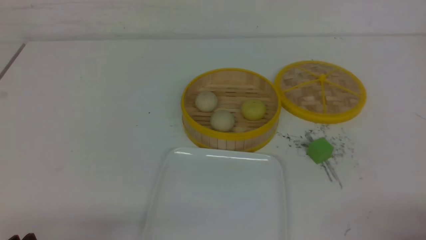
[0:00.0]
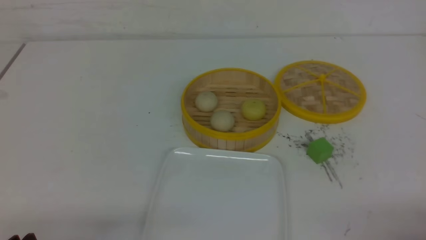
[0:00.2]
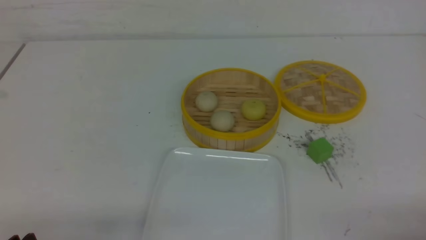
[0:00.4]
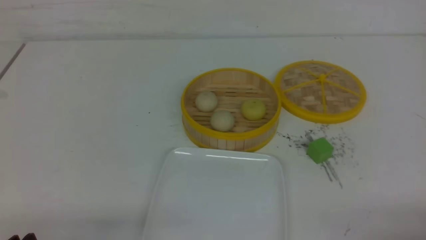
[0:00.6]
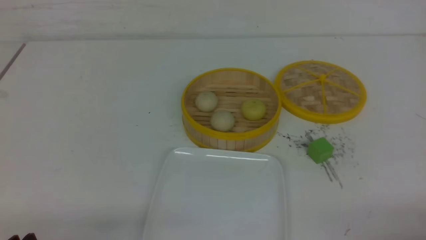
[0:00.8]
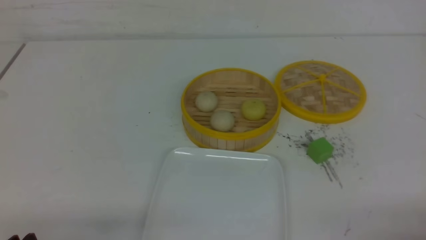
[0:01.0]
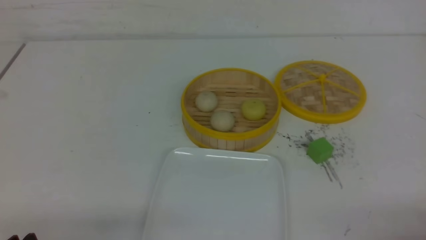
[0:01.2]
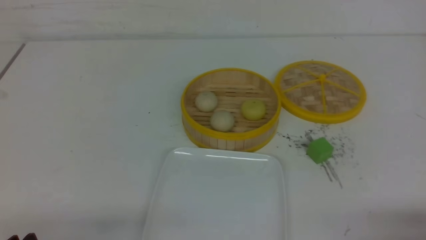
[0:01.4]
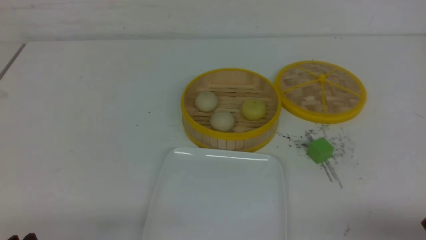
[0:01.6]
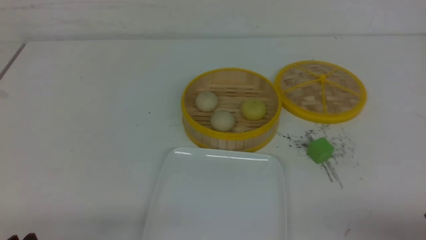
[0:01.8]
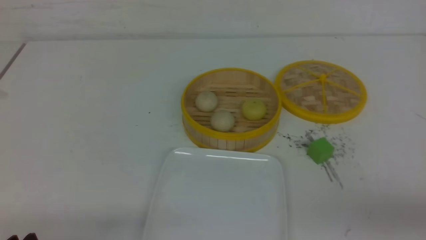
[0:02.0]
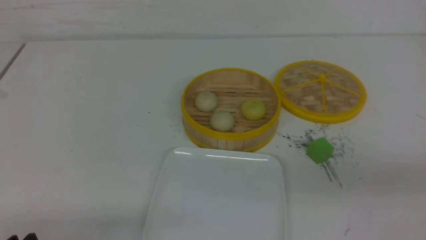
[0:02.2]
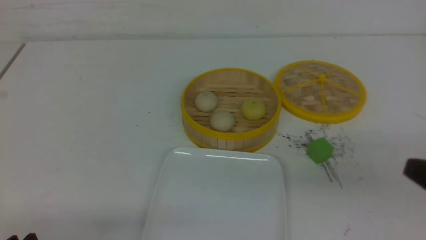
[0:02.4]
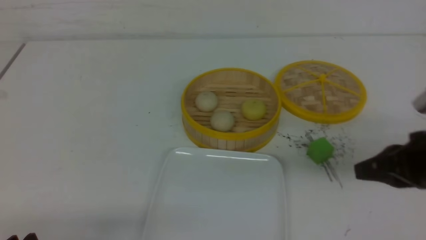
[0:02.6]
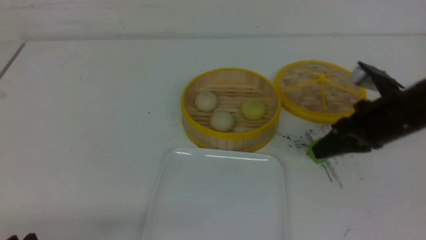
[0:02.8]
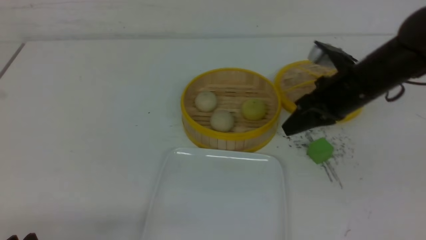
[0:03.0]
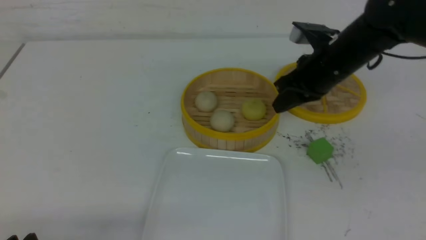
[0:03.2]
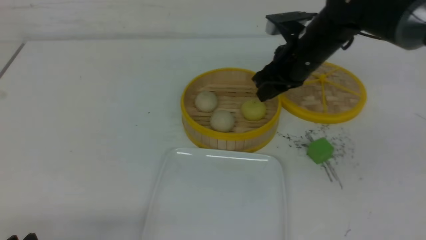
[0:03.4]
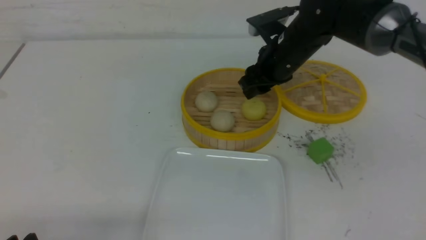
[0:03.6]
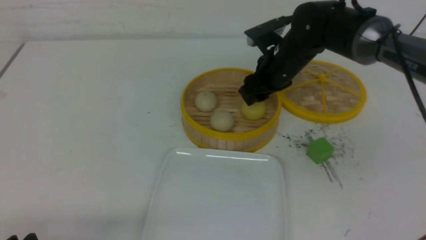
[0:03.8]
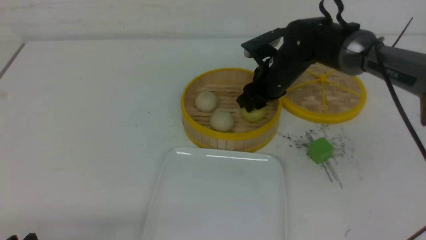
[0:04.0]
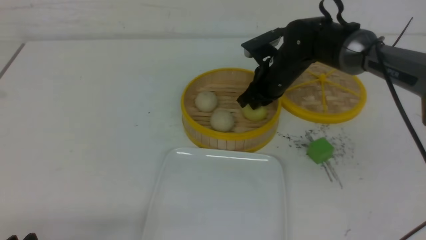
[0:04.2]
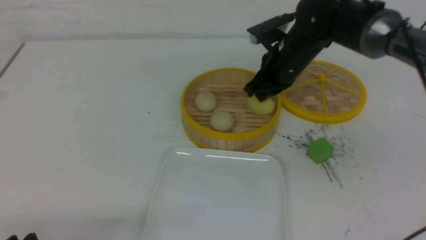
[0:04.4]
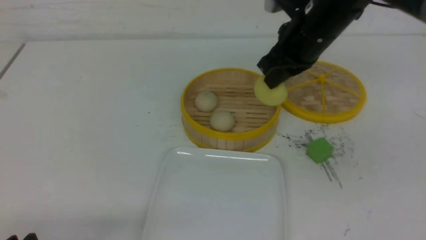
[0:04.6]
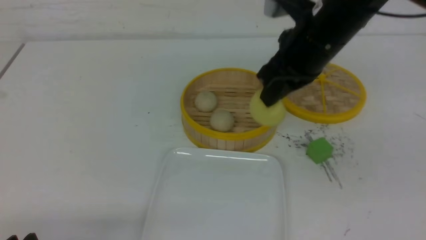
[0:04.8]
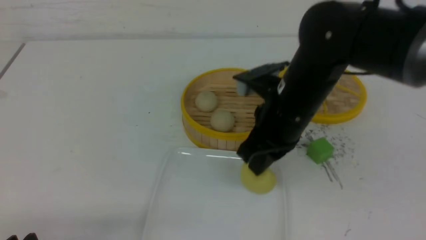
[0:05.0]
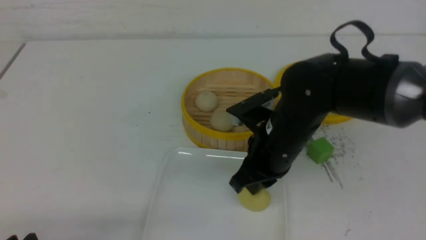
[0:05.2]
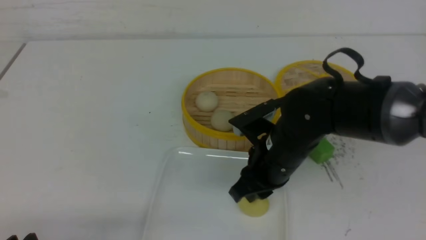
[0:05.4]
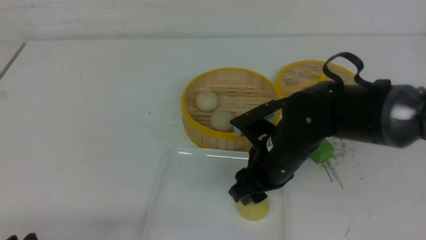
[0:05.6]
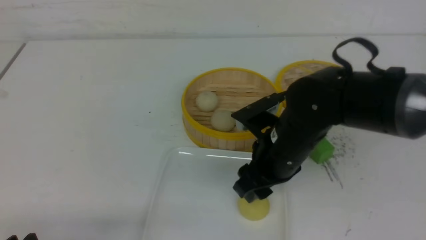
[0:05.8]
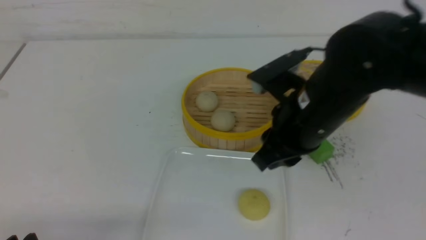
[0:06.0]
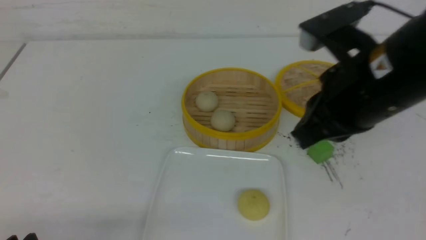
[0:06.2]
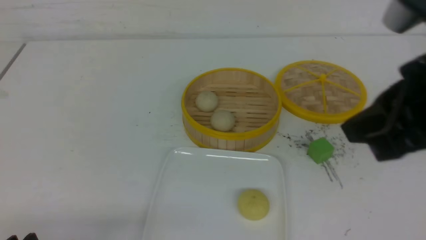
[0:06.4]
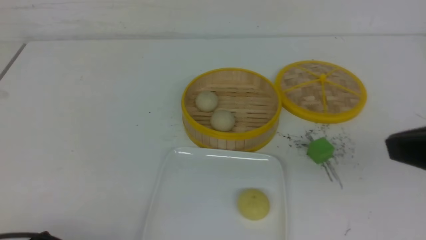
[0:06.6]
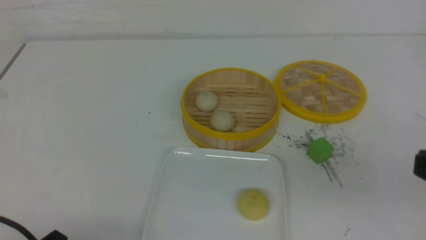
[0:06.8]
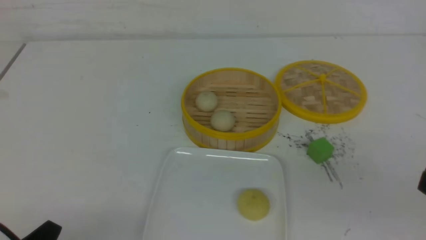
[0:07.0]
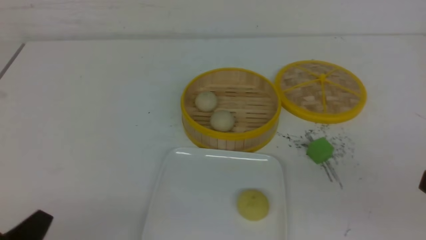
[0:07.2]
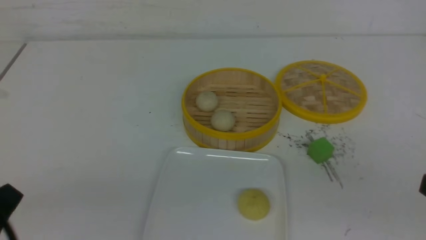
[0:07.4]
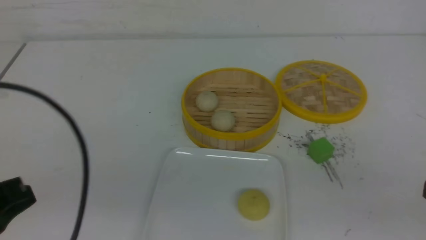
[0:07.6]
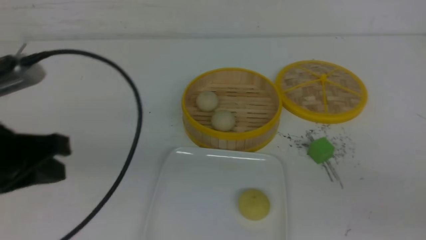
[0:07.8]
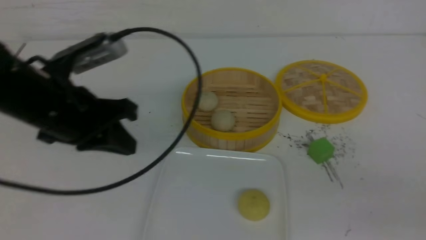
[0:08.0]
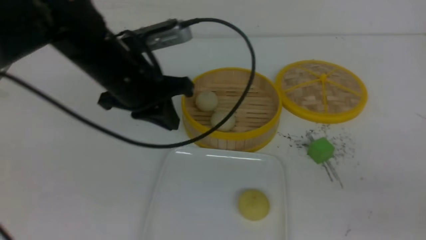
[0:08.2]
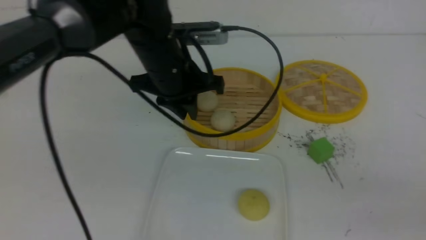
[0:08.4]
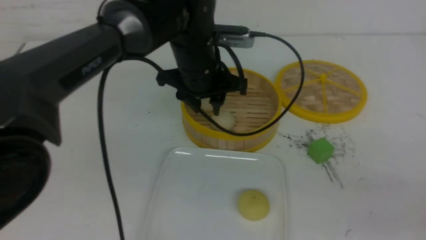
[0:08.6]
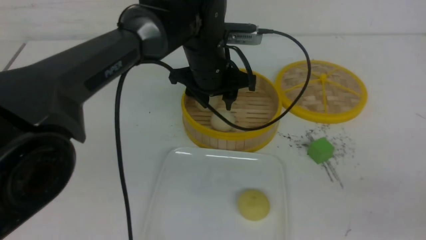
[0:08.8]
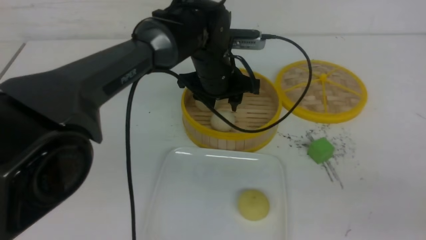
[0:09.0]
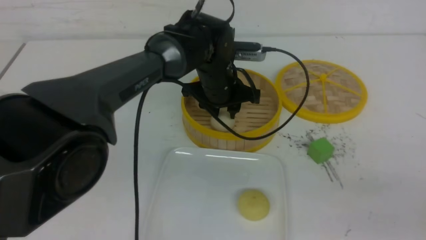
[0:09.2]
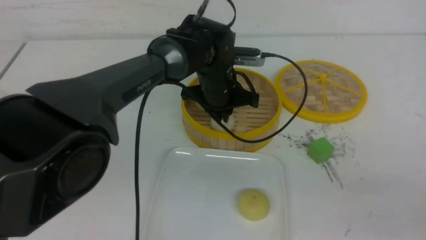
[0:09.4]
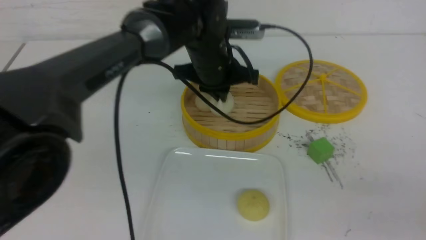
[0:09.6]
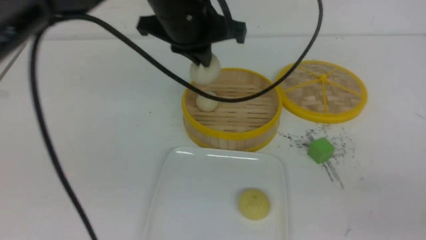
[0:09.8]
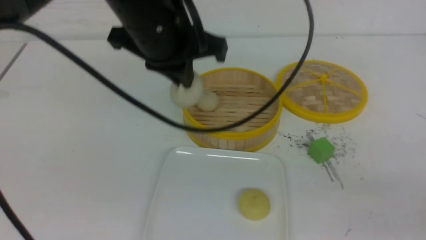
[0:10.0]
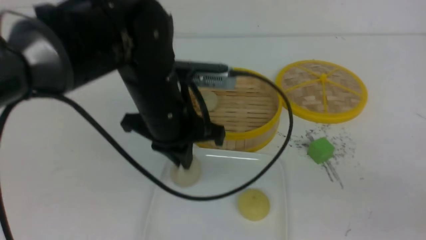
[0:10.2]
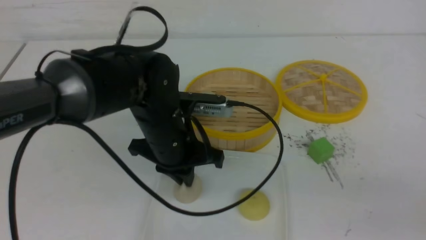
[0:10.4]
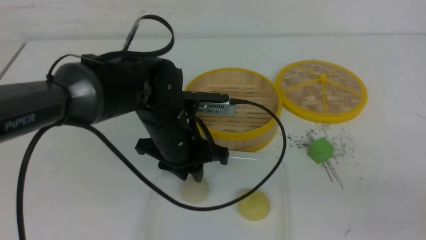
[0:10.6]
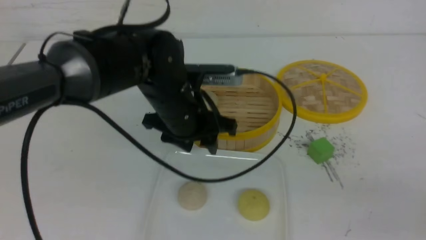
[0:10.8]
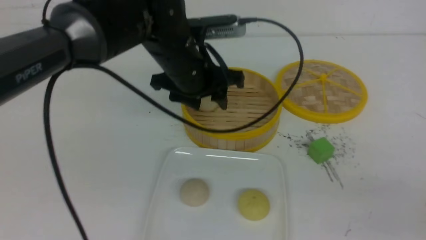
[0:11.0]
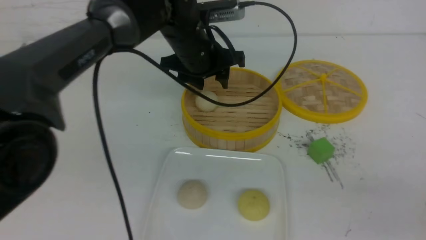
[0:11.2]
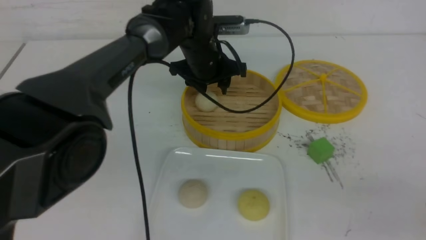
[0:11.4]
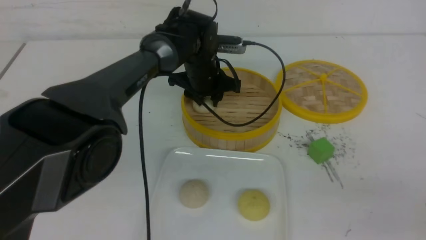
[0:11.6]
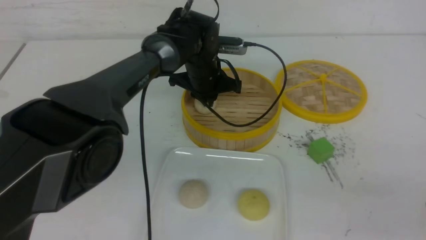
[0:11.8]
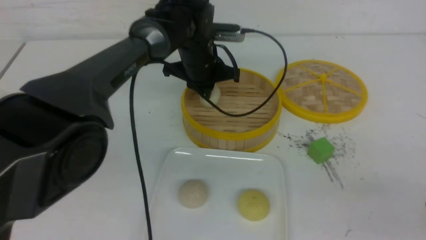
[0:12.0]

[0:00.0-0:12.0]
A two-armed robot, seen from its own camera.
Step, 0:00.0 to 0:04.2: use the right arm to grab the steamed stuffed bun that is closest to it.
Step, 0:04.4 to 0:05.4: use the right arm to put the steamed stuffed bun into the plate.
Step, 0:05.6 to 0:09.4: use the left arm to grab the steamed stuffed bun that is closest to it.
Step, 0:09.6 to 0:10.4: use the left arm to put the steamed stuffed bun into the plate.
Step, 0:10.8 to 0:11.8: use the left arm to grab the steamed stuffed bun that is closest to it.
0:01.6 to 0:03.0: The right gripper travels forward by approximately 30 cm, and closes its fingers.
0:03.0 to 0:04.4: The right gripper travels to the left and forward by approximately 10 cm, and opens, then closes again.
0:04.4 to 0:06.0: The right gripper goes some 15 cm backward, and opens its fingers.
0:06.0 to 0:07.6: The left gripper goes approximately 15 cm upward, and closes up. Meanwhile the right gripper goes roughly 25 cm backward and to the right, and closes its fingers.
0:07.6 to 0:09.0: The left gripper moves forward and to the right, some 40 cm, and opens up.
0:09.0 to 0:10.4: The left gripper travels backward and to the left by about 15 cm, reaches some 10 cm upward, then returns, and closes.
0:10.4 to 0:12.0: The left gripper heads forward, covering approximately 15 cm, and opens and closes again.

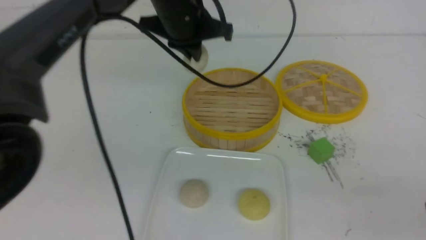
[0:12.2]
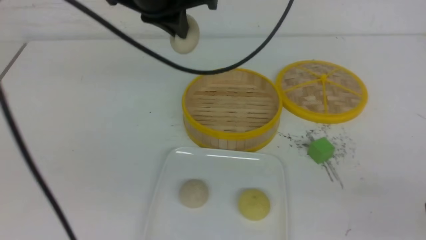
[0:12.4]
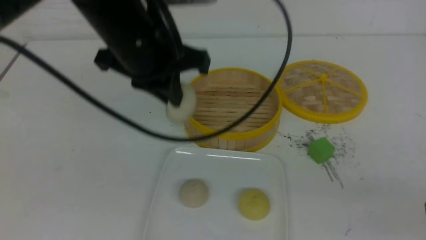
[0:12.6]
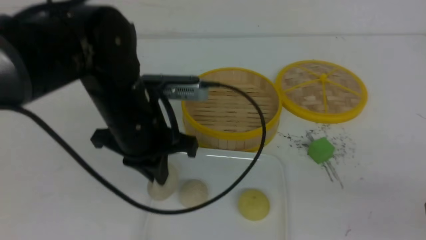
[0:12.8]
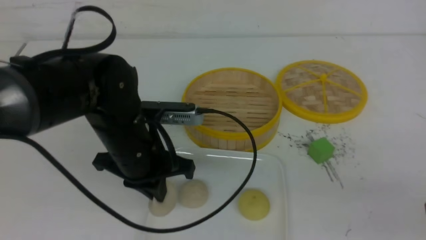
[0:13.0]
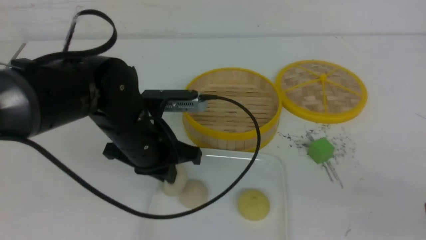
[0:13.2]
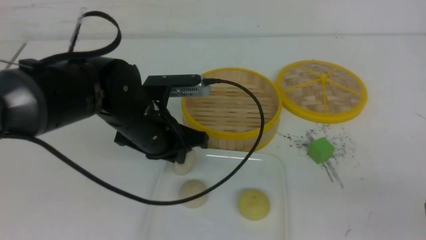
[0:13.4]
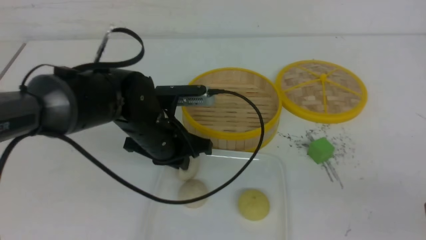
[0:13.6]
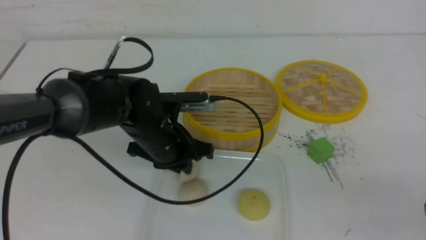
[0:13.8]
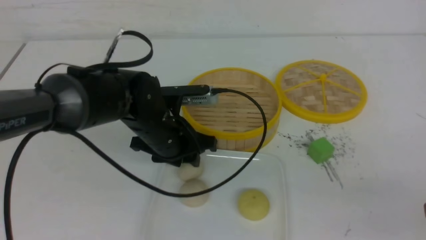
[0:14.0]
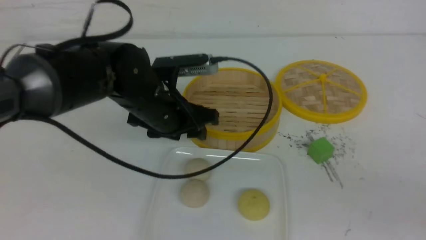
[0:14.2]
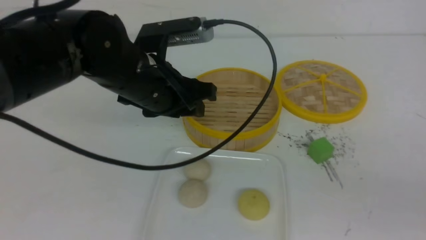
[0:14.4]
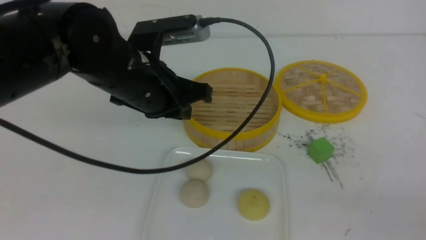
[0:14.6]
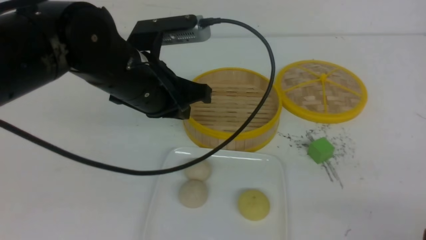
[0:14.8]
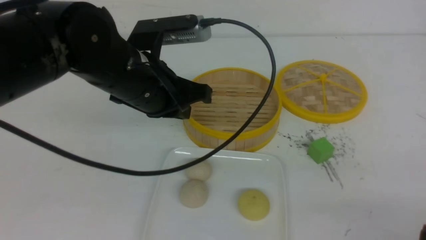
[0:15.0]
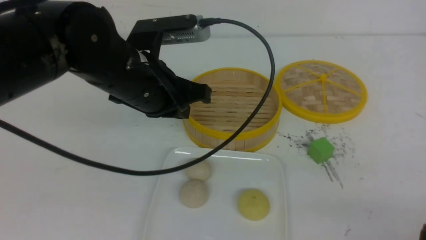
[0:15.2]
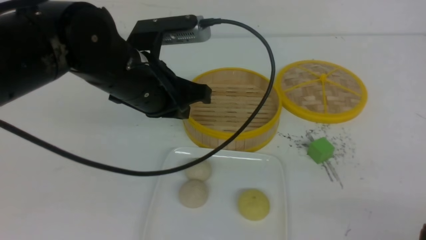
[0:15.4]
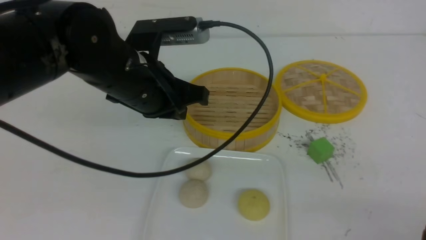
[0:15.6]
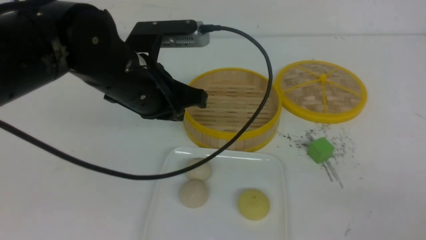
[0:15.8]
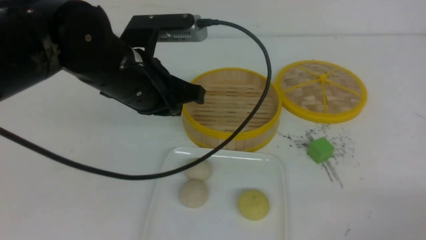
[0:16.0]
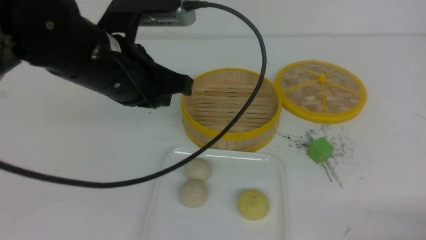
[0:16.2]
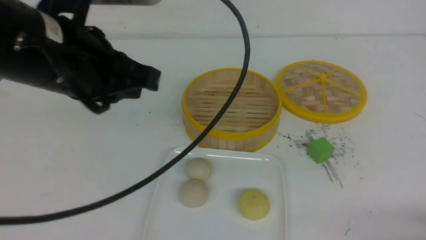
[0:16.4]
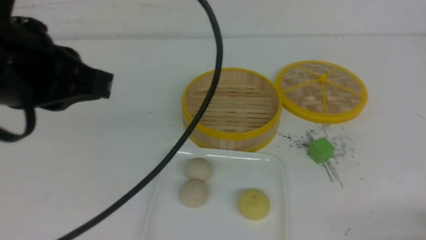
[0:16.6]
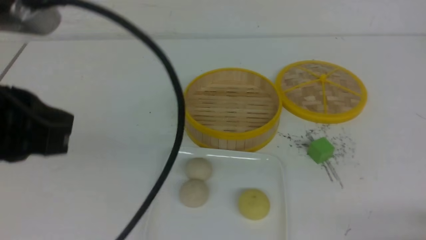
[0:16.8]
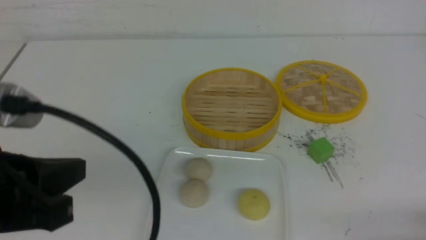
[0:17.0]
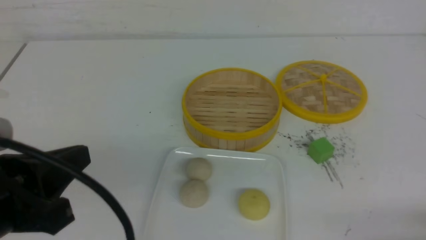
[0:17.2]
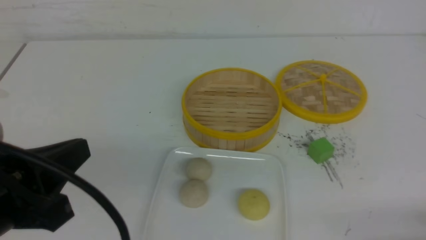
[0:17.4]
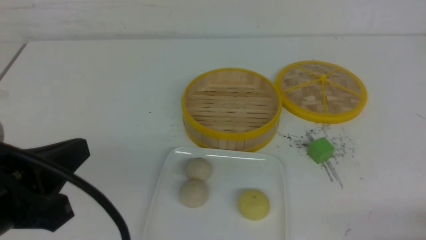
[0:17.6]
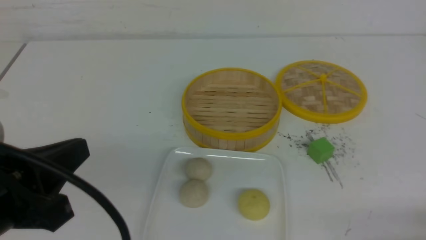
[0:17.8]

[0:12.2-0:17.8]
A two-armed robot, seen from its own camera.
Step, 0:12.2 to 0:13.8: use the left arm to put the steamed stuffed bun into the plate.
0:12.2 to 0:13.6: The left gripper moves downward and backward, approximately 15 cm.
0:13.6 to 0:15.0: The right gripper closes up; the left gripper moves upward, approximately 10 cm, and opens, then closes once more.
0:15.0 to 0:16.4: The left gripper travels upward, backward and to the left by approximately 10 cm; the right gripper heads downward, covering about 10 cm.
0:16.4 to 0:17.8: The left gripper shifts approximately 15 cm backward, downward and to the left.
